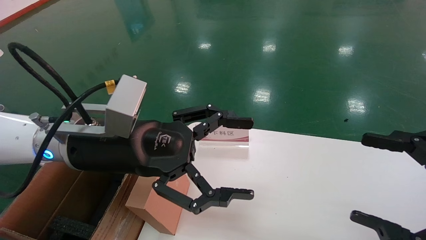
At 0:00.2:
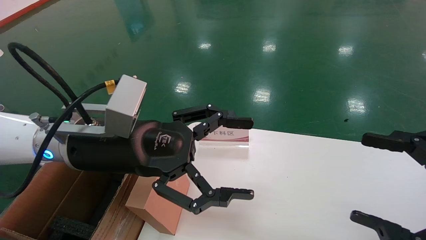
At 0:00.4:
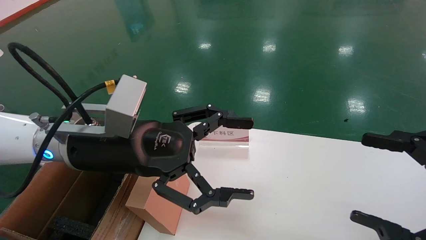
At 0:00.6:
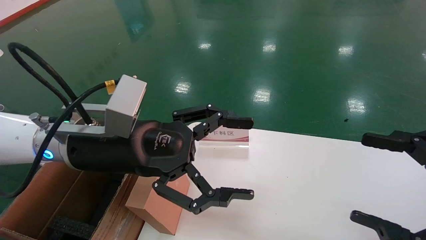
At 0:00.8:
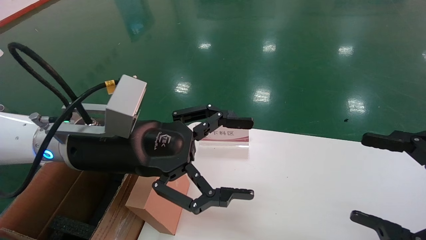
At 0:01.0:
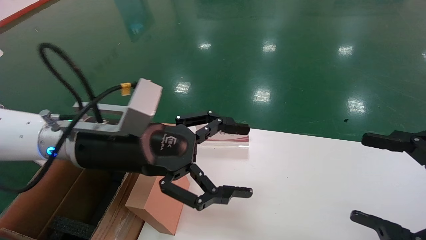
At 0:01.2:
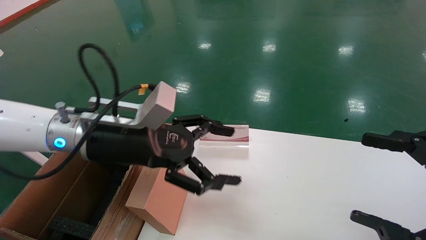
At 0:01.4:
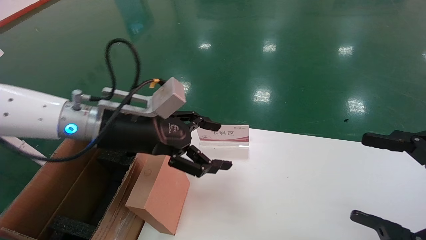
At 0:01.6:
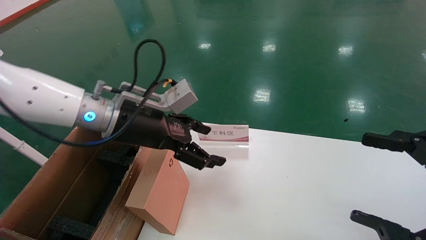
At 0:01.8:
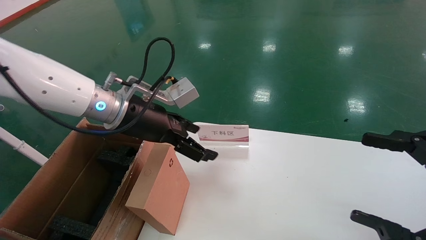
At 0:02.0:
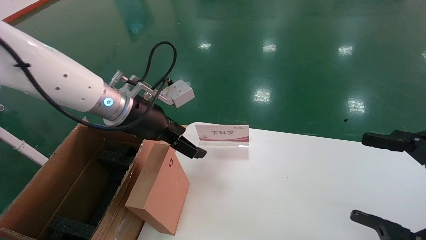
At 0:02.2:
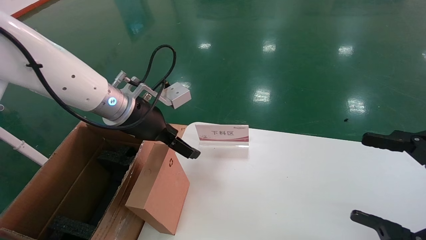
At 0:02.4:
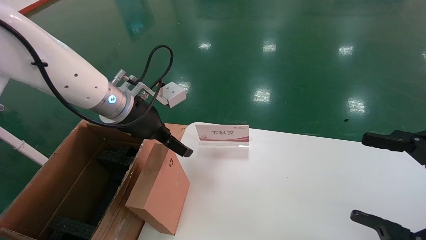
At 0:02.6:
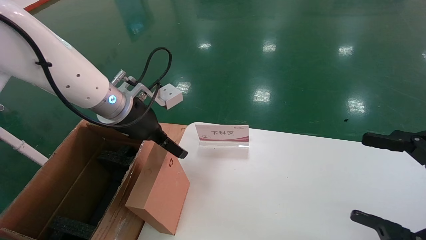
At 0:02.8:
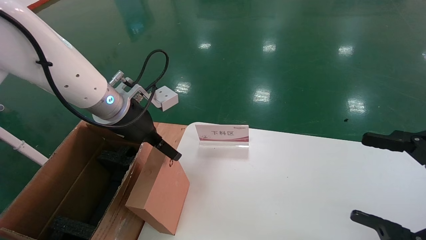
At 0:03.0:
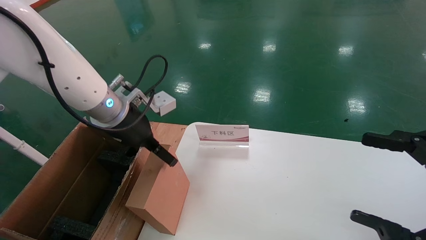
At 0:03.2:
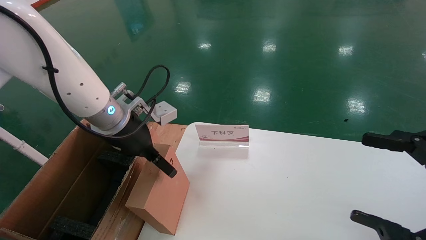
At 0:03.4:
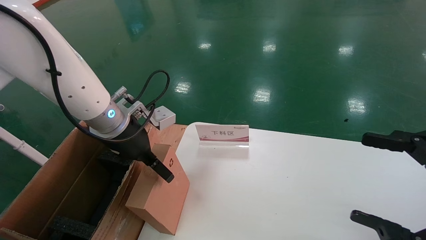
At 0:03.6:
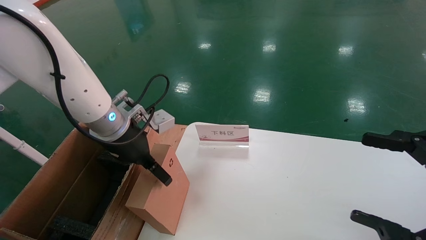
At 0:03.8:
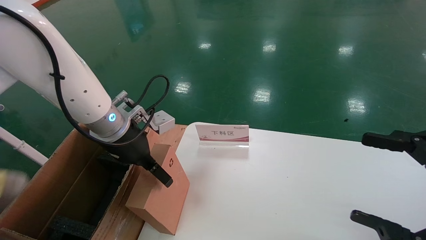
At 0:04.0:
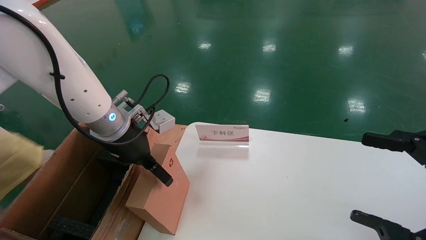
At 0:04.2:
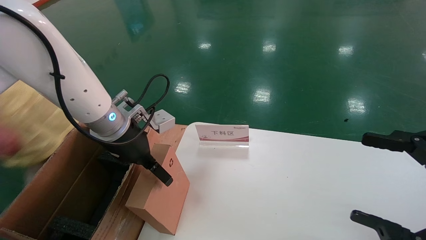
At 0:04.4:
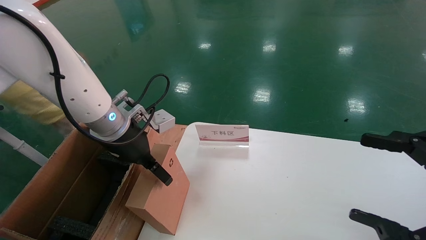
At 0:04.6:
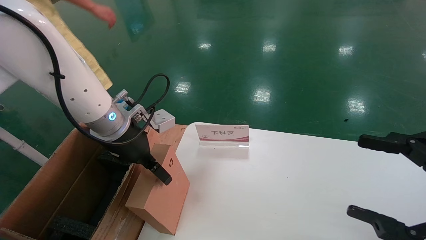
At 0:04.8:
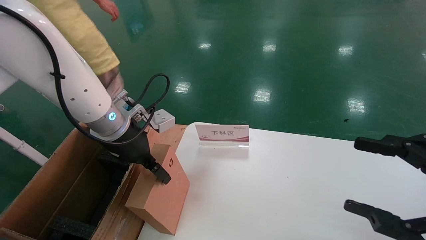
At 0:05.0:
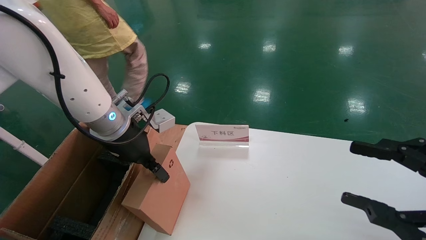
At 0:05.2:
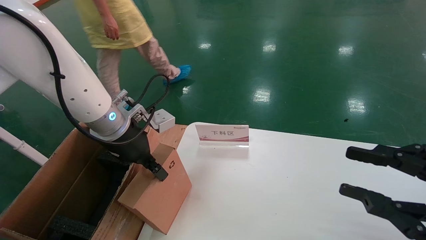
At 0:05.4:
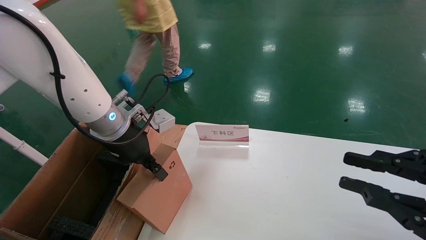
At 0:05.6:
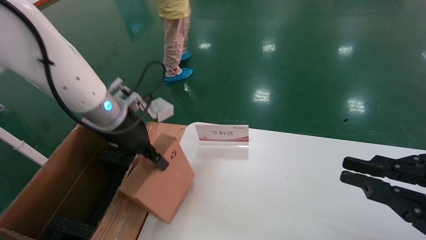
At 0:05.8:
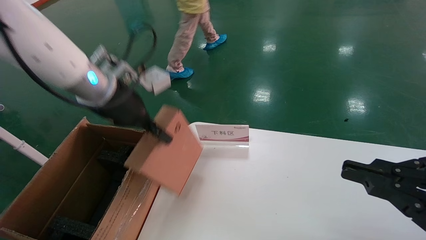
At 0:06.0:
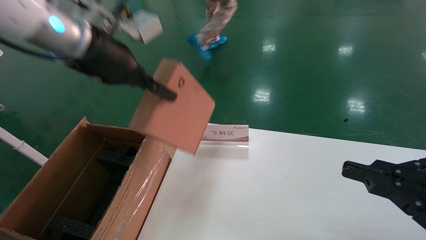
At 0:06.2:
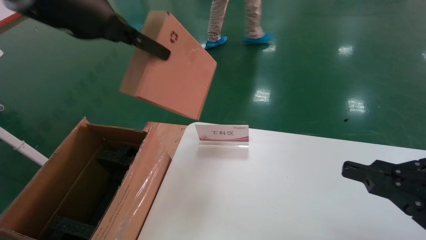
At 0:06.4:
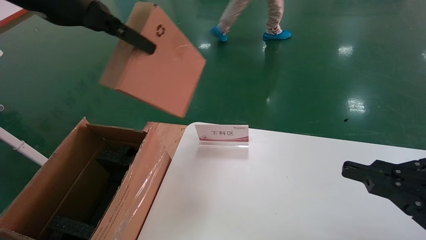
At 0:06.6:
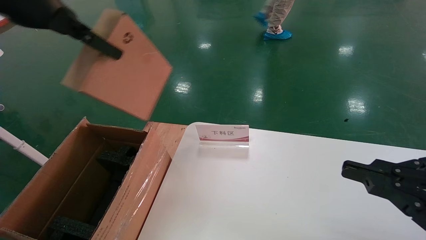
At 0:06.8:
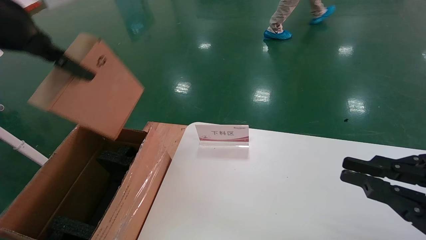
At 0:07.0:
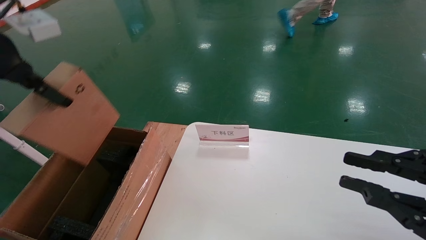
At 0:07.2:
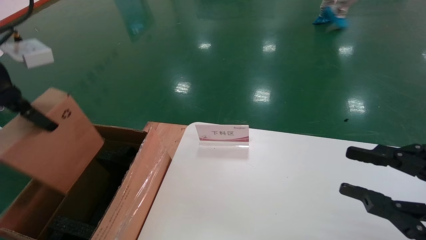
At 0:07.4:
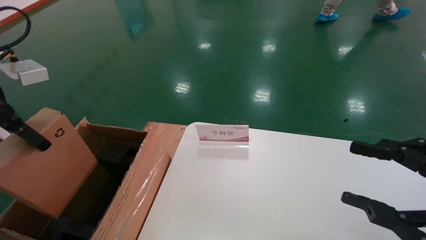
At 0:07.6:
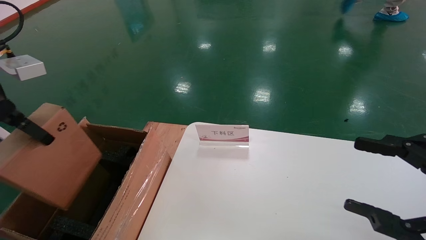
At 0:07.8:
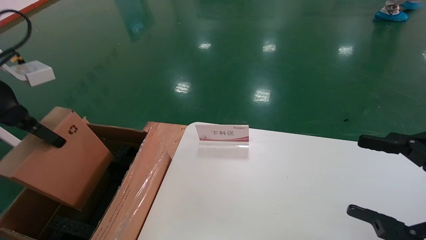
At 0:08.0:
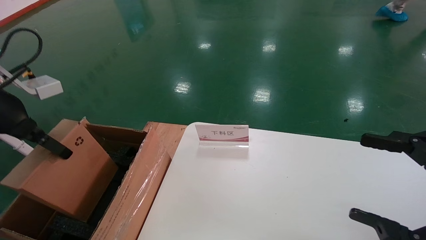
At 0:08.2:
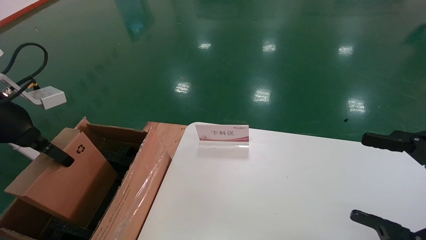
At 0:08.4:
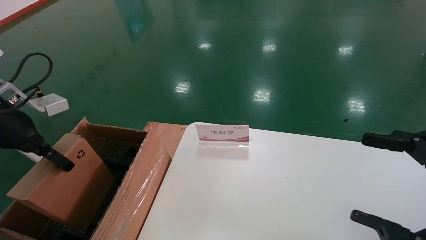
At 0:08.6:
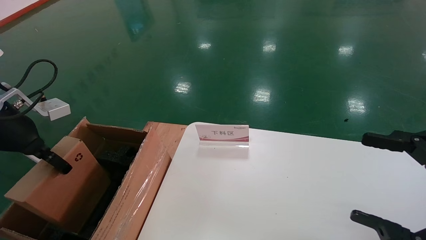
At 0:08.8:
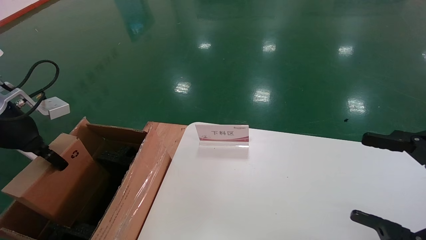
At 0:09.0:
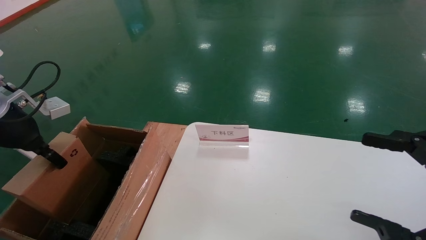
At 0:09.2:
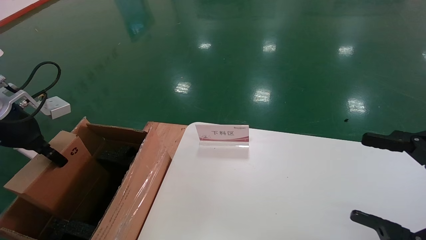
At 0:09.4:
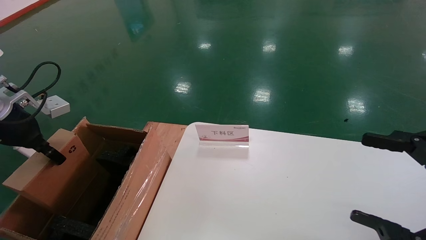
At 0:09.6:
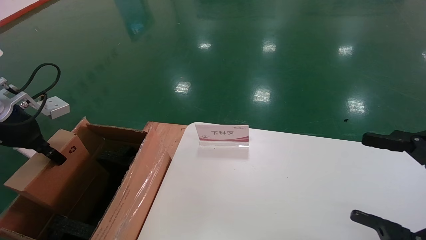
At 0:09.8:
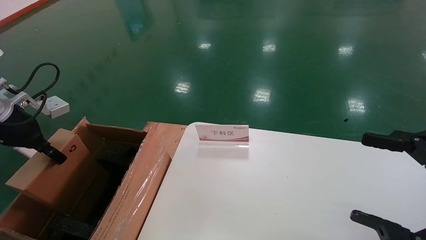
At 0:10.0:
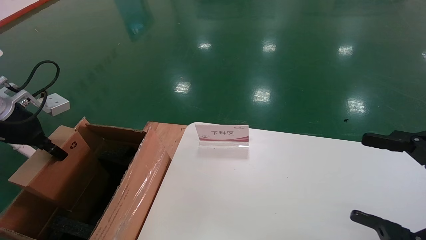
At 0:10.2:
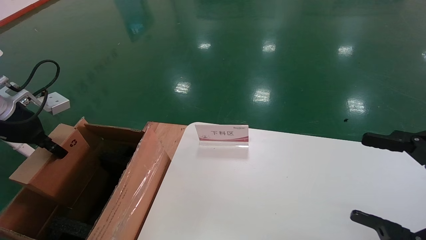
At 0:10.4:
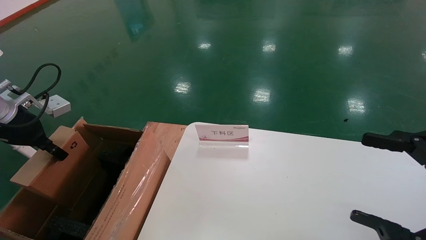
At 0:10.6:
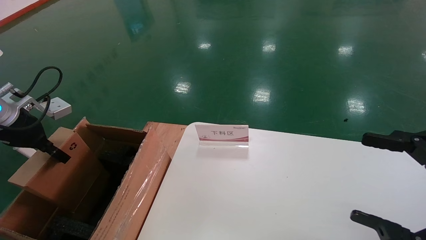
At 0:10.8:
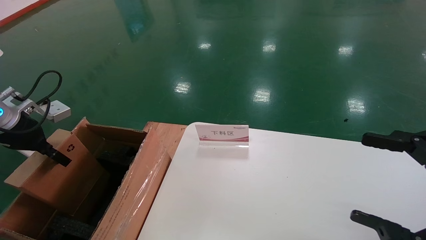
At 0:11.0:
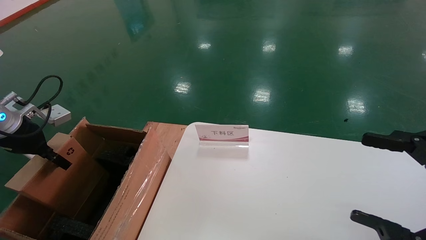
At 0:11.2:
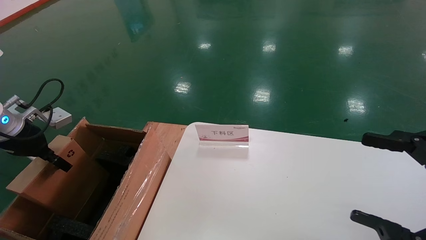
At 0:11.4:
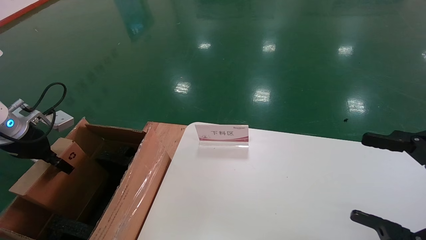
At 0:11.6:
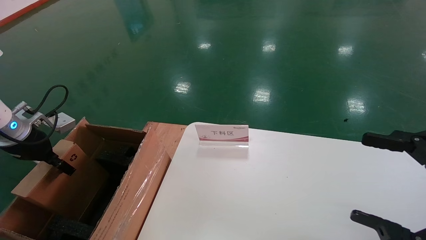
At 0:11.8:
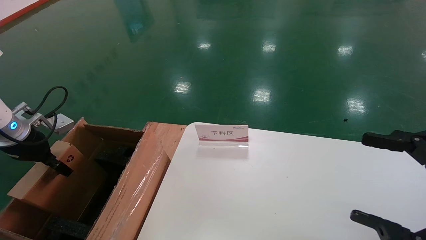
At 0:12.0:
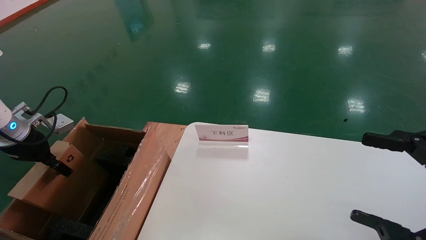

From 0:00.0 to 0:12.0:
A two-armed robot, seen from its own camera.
Task of the whole recording: pick up the small cardboard box and load it into the large cardboard box.
Step, from 0:01.2 to 0:05.2: Pick up the mouse and power cord box.
From 0:00.0 to 0:01.6: The left gripper goes approximately 5 cm forward.
From 0:03.0 to 0:04.4: The grippers make only small movements.
From 0:04.4 to 0:06.0: The left gripper goes roughly 15 cm upward, and closes up. The right gripper closes its fingers.
From 0:06.0 to 0:07.6: The right gripper opens. The left gripper heads to the left and backward, covering roughly 20 cm.
From 0:07.6 to 0:09.0: The left gripper shifts approximately 10 cm downward; the right gripper opens up.
From 0:09.0 to 0:10.4: There are only small adjustments of the grippers.
From 0:10.4 to 0:12.0: The left gripper shifts about 5 cm downward.

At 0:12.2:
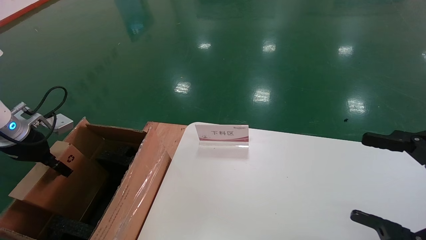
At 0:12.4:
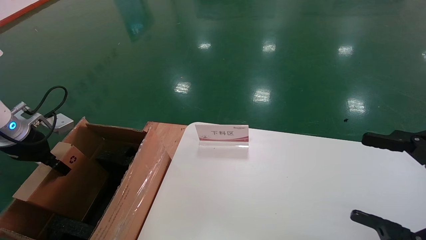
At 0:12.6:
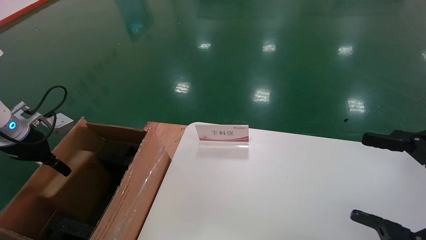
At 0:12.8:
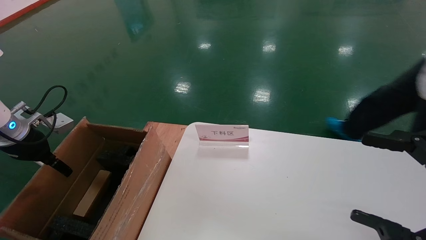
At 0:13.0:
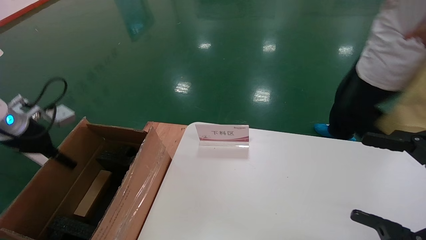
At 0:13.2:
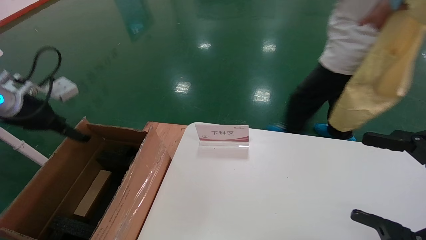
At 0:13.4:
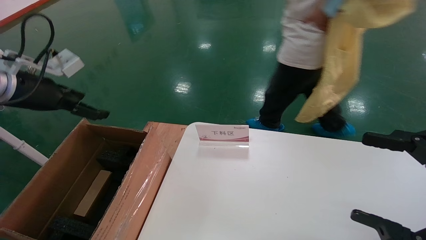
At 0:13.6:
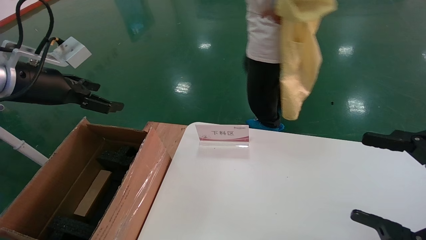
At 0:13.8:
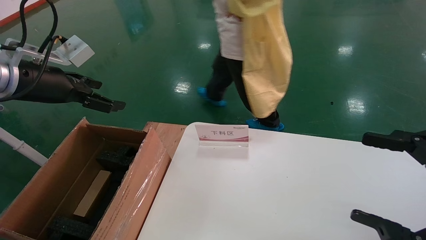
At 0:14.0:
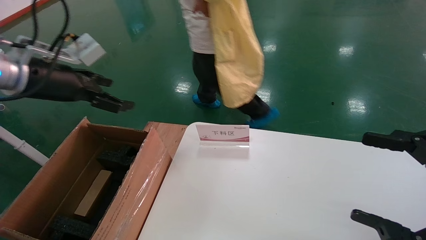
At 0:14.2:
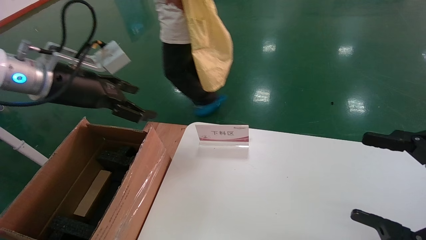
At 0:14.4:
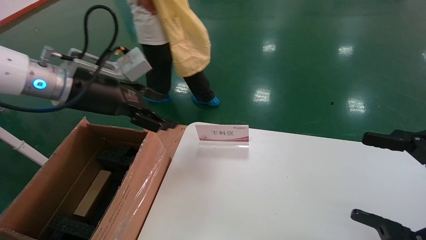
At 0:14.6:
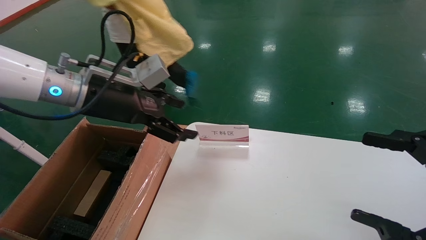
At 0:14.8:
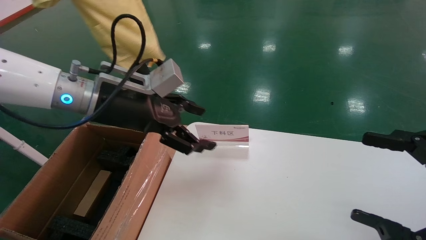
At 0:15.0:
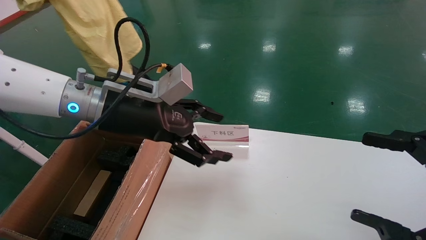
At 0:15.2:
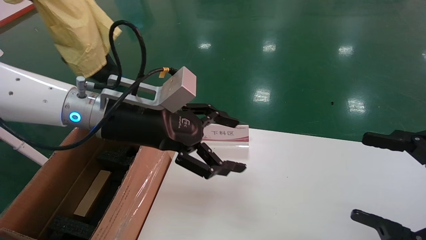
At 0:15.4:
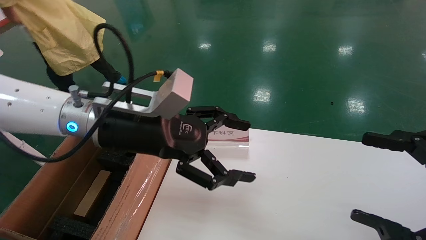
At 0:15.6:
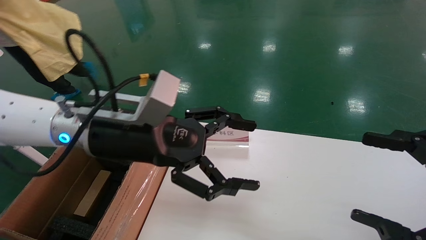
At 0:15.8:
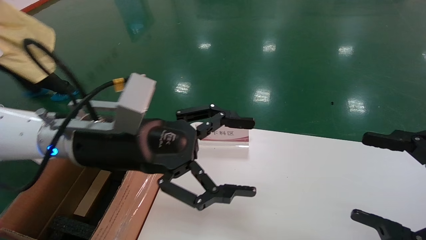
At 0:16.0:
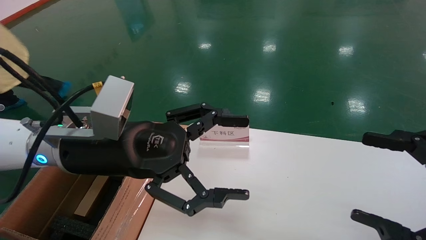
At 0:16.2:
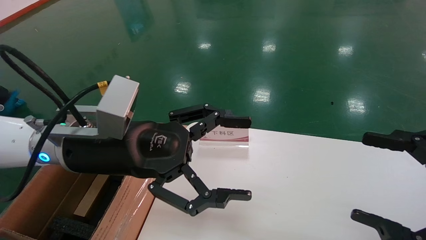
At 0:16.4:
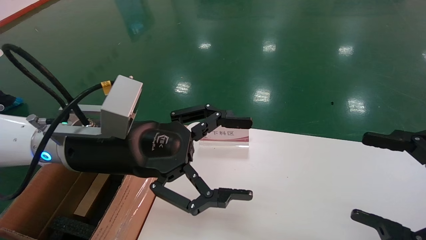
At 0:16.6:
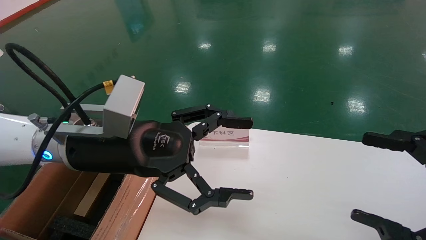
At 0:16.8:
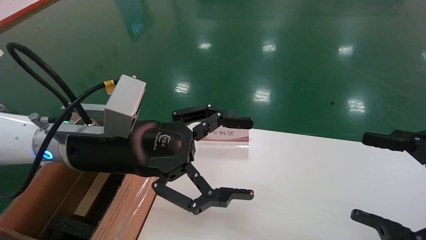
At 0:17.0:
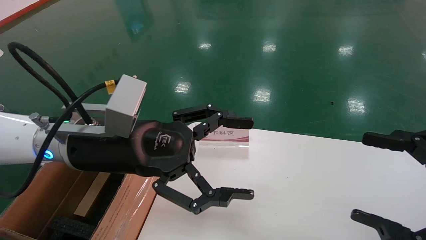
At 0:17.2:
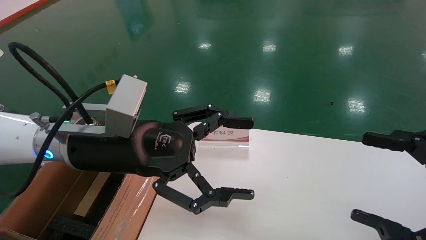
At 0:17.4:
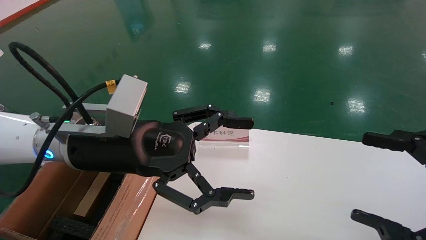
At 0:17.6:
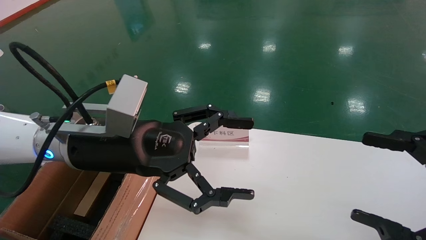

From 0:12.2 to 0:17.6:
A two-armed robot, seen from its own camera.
Task of the whole recording: pick up the small cardboard box and load it into the large cardboard box.
From 0:12.2 to 0:13.6: The left gripper heads upward and to the right, covering about 15 cm, and opens its fingers.
From 0:13.6 to 0:15.0: The left gripper moves to the right, approximately 20 cm.
From 0:15.0 to 0:16.2: The left gripper moves backward, about 5 cm.
From 0:16.2 to 0:17.6: The two grippers keep their place.
